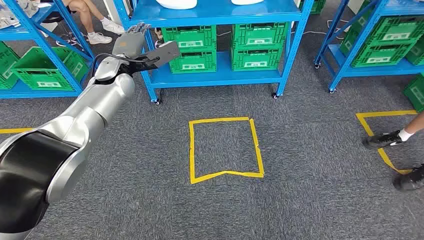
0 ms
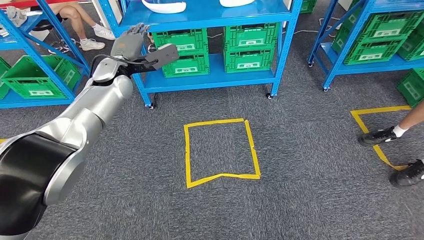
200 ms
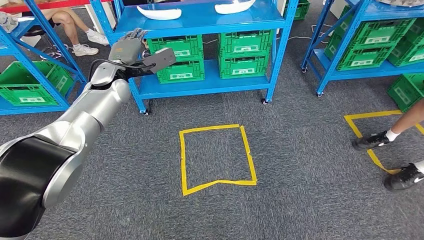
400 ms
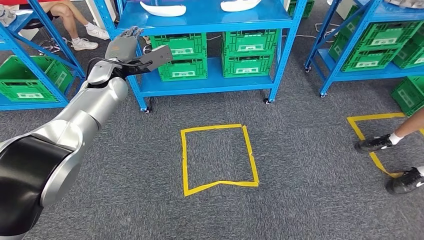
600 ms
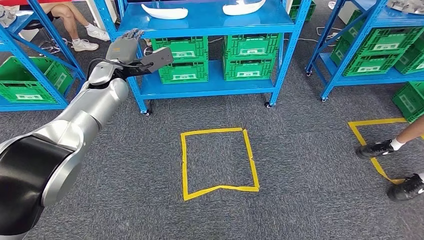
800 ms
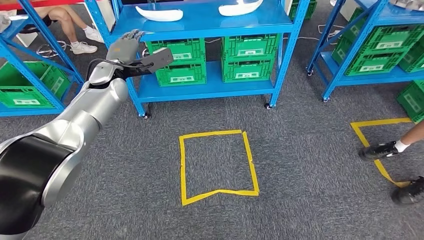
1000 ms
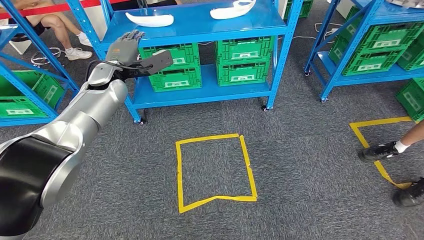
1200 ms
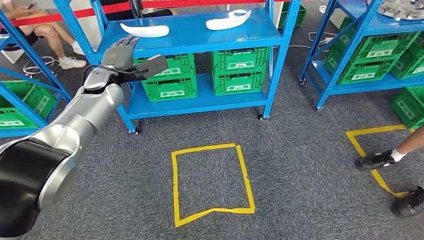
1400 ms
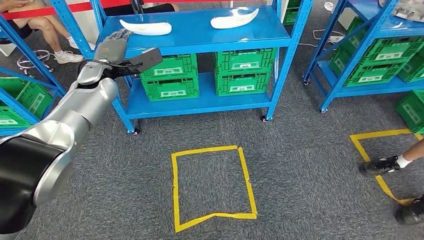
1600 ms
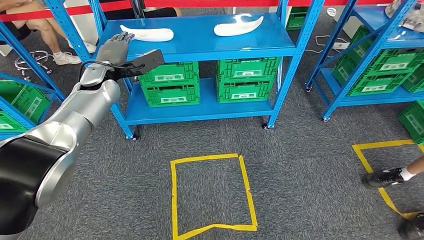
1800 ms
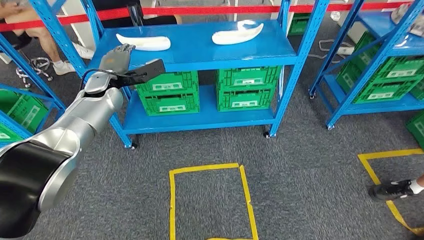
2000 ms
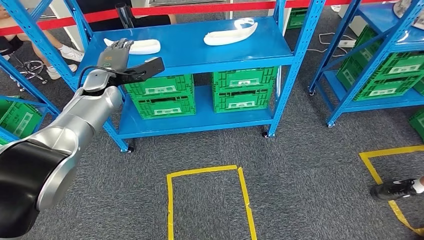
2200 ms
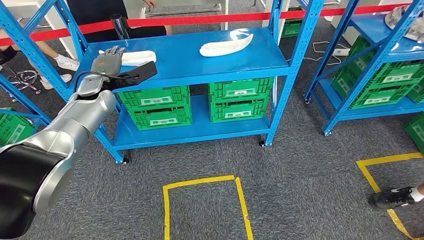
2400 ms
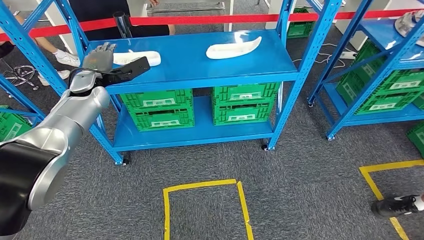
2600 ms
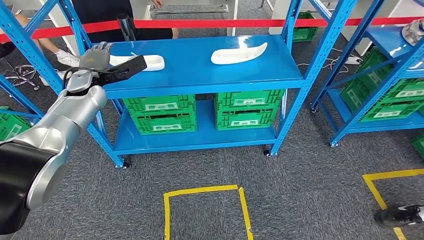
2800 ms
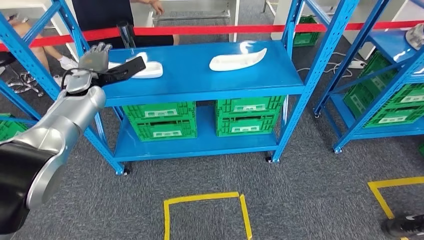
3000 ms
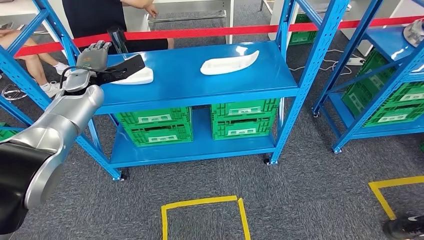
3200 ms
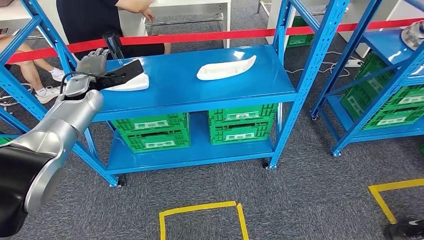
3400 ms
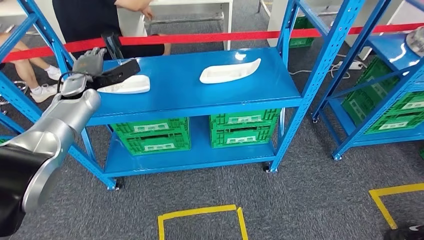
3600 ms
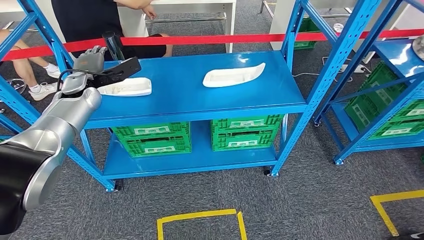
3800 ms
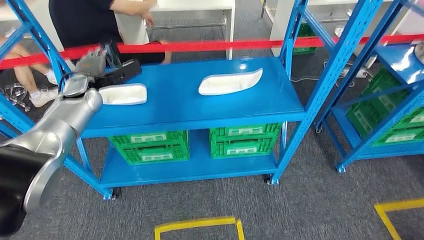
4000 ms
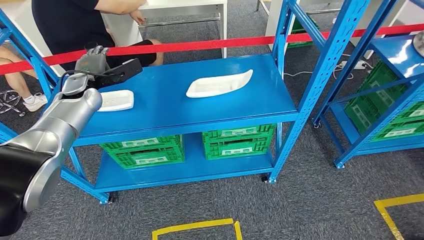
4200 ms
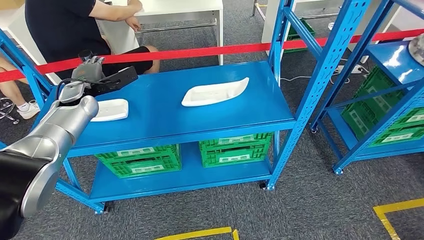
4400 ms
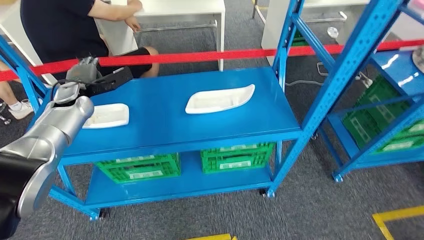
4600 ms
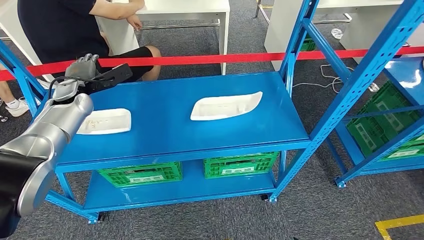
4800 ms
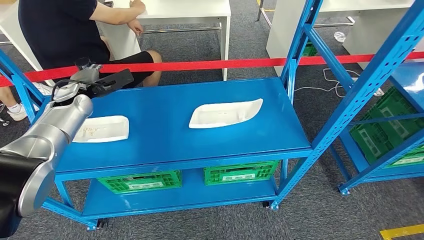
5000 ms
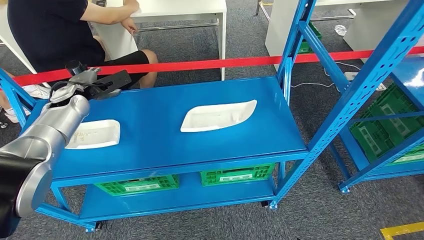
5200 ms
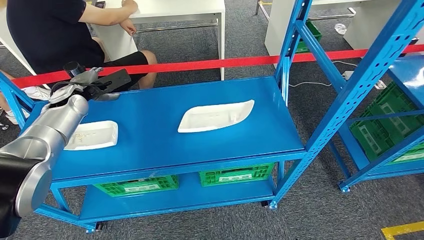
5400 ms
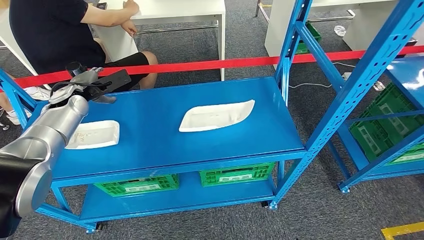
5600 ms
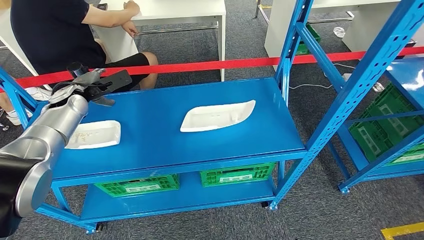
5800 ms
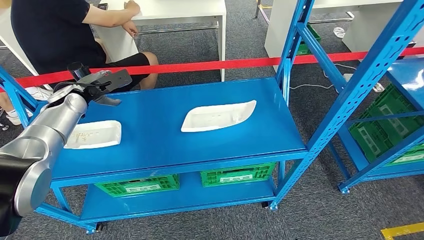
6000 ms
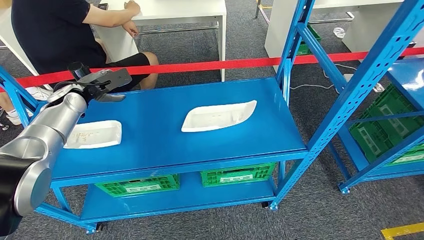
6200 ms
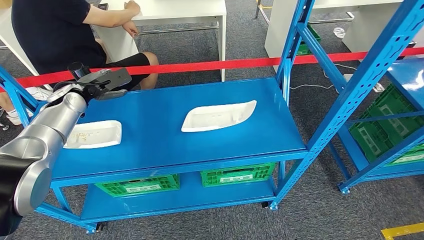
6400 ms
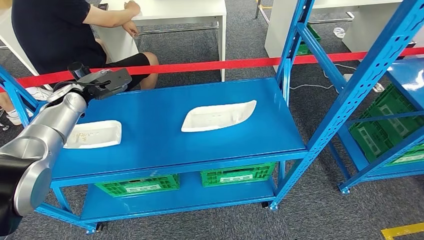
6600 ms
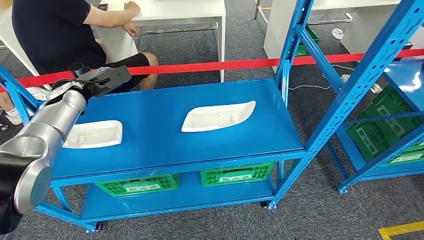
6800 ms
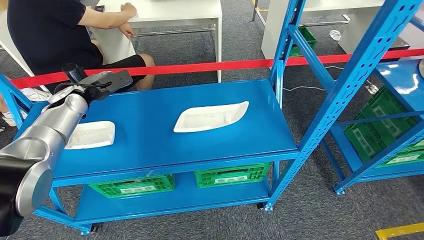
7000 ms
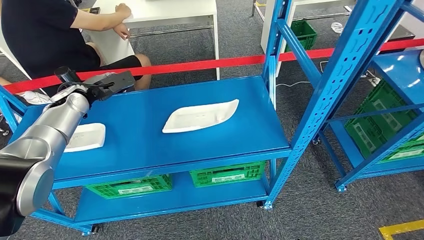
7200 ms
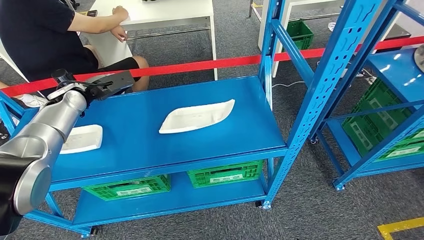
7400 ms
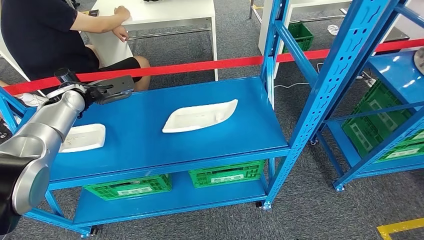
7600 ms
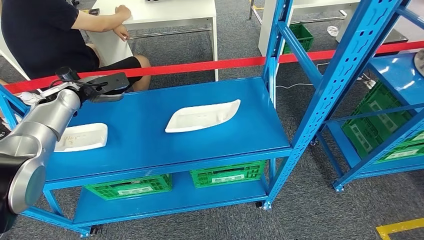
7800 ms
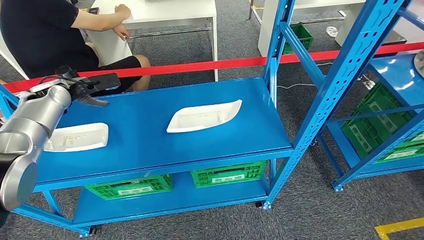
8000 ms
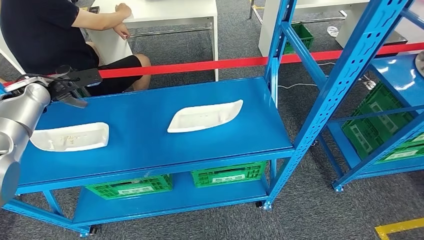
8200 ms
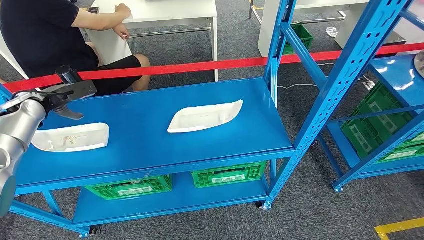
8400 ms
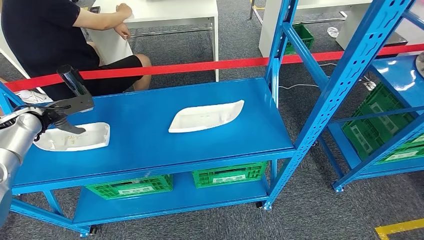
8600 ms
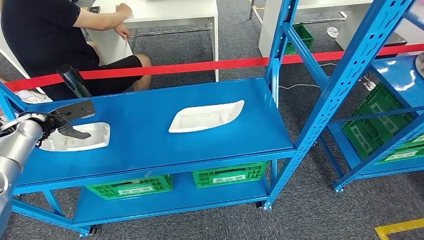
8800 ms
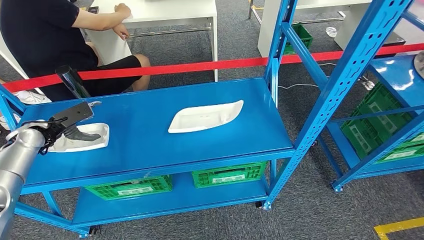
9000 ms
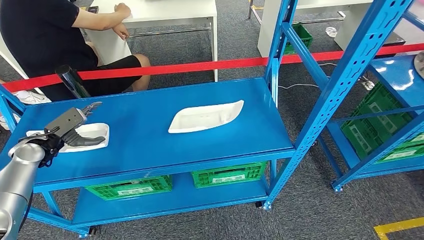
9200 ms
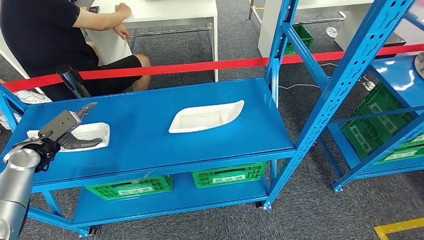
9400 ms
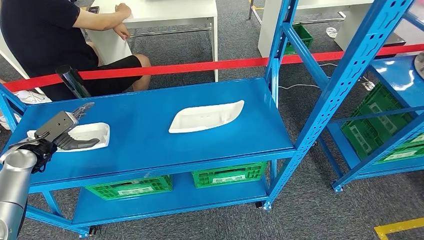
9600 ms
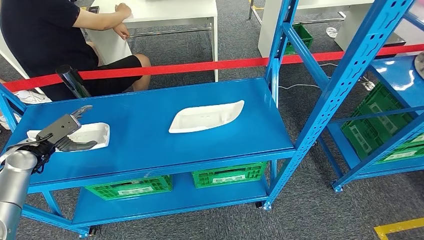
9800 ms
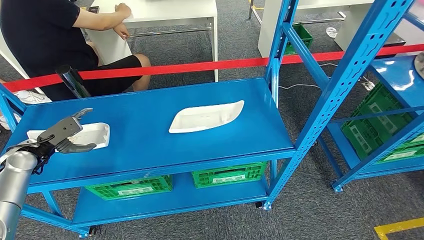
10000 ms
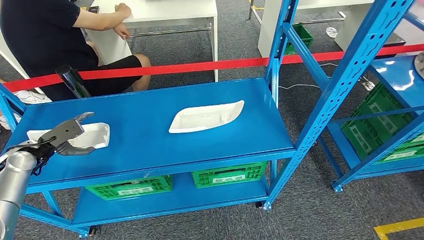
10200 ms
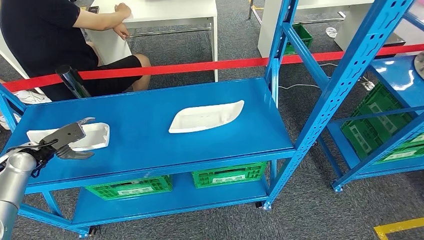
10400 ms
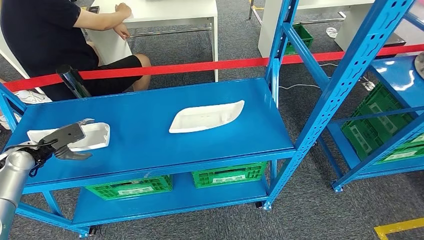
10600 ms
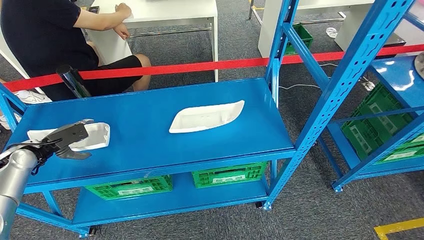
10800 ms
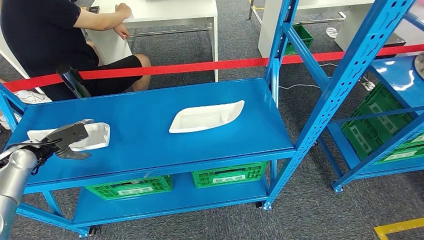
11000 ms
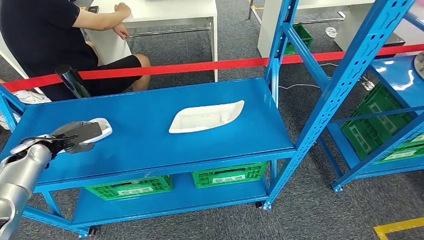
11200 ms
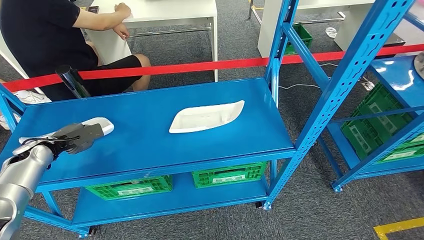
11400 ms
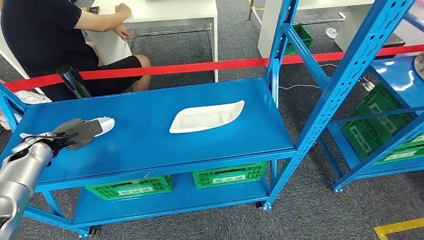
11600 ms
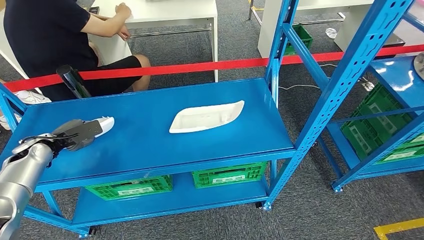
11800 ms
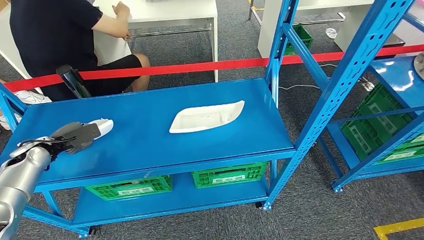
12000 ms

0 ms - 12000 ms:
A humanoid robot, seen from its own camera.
9000 ms - 10400 ms: The left hand travels backward by approximately 5 cm.
10400 ms - 12000 ms: There are only small adjustments of the hands.

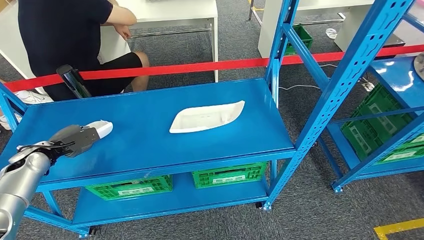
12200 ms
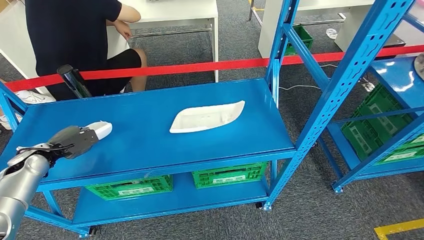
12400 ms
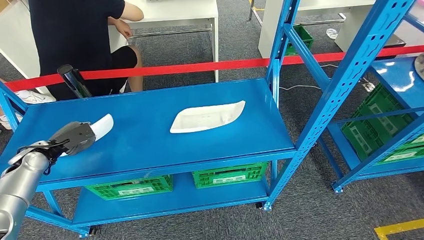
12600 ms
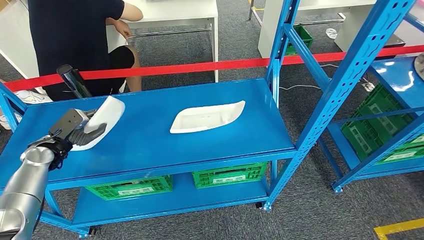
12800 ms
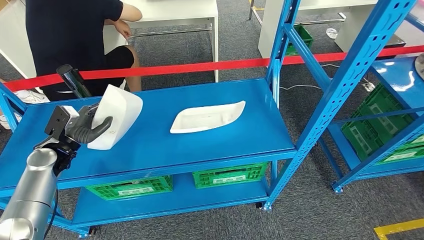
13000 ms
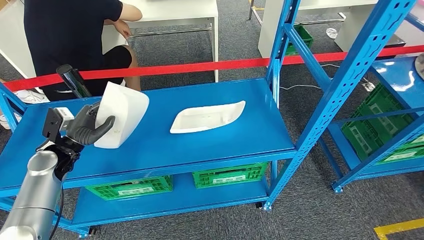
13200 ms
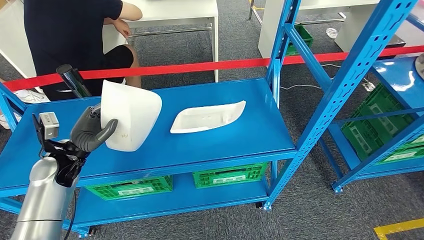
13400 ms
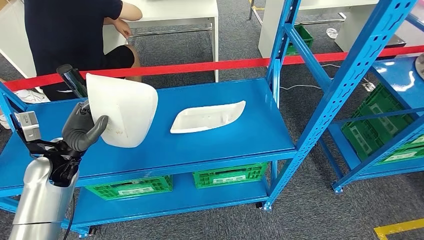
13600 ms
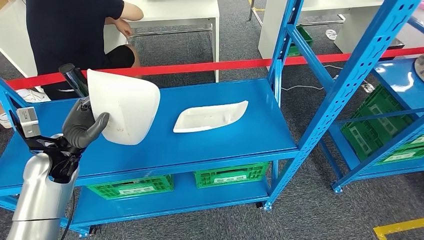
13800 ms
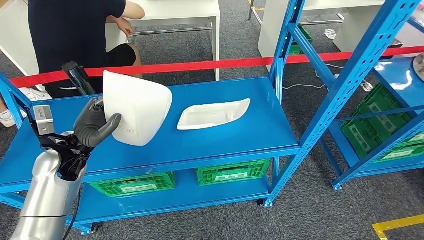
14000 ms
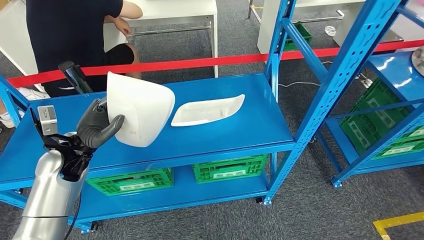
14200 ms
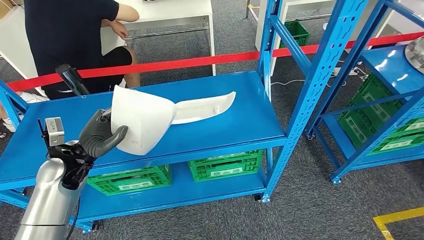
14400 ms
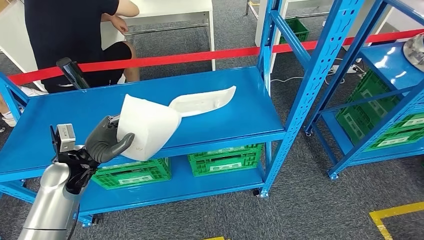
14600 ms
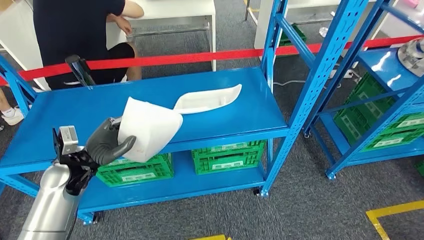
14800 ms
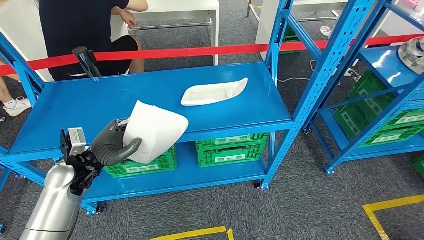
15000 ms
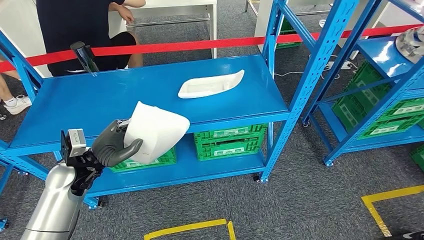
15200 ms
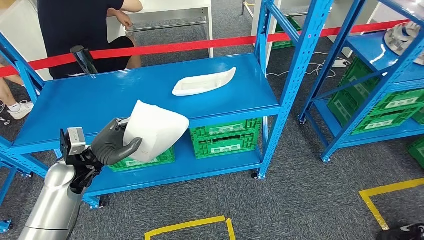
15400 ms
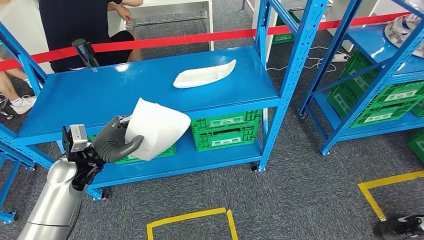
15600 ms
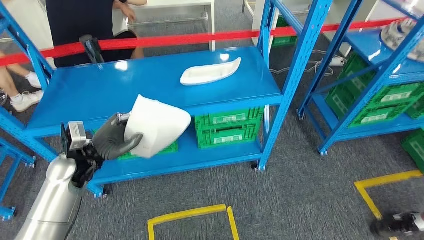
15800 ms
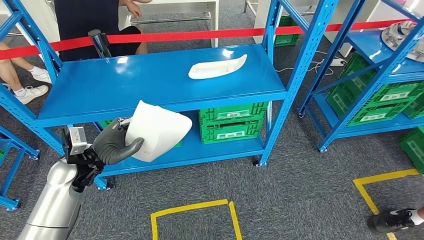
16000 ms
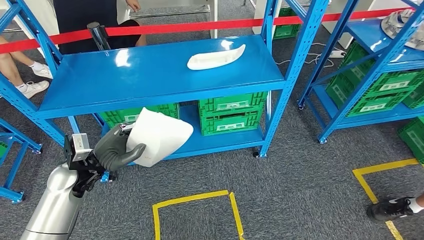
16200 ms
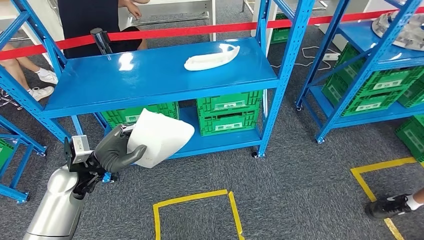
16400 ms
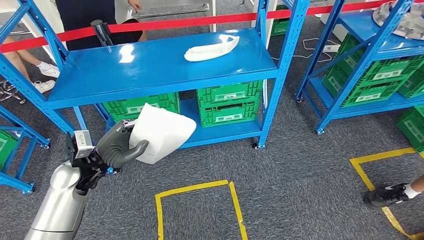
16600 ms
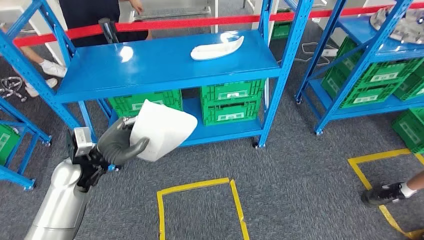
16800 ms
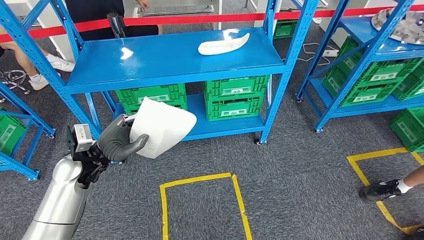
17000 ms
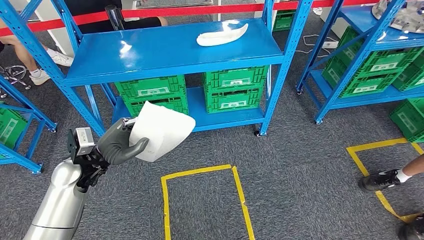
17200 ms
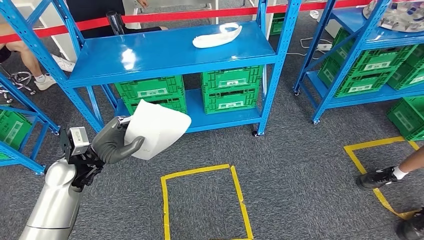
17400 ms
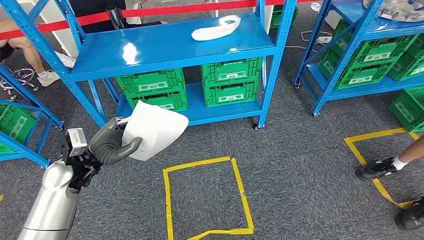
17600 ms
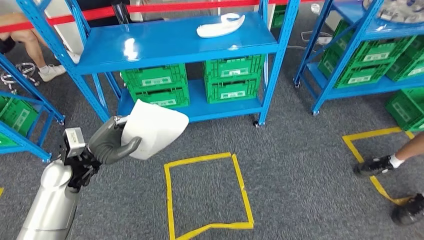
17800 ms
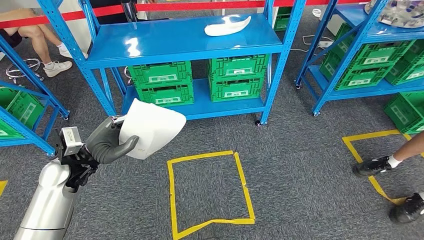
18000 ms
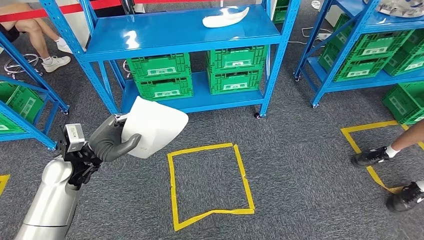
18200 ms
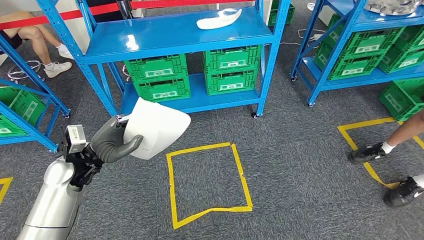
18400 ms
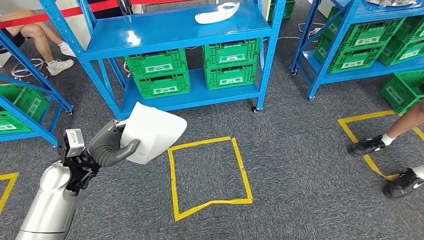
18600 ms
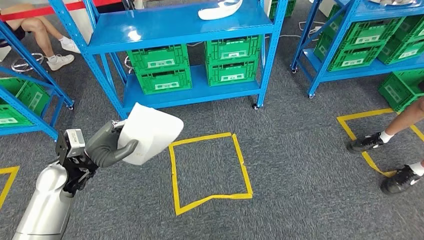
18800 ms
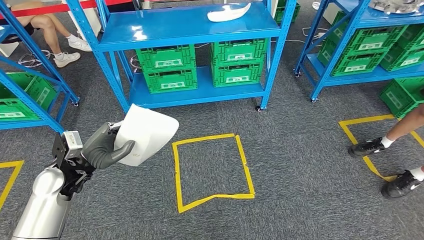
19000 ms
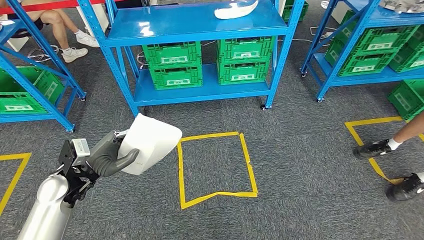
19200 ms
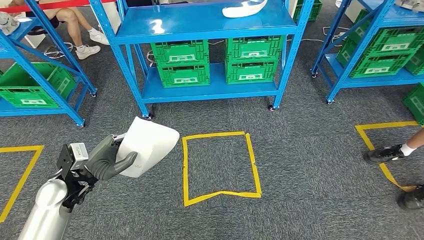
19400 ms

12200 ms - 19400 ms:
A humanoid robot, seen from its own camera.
12200 ms - 13600 ms: The left hand is displaced to the right and upward by approximately 15 cm.
